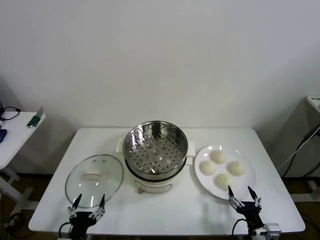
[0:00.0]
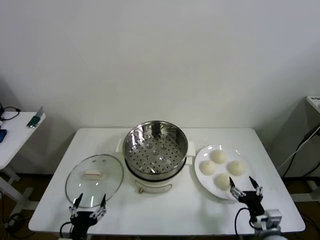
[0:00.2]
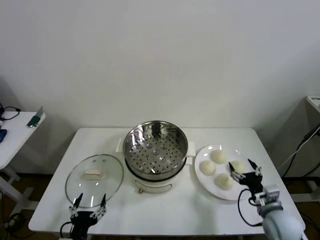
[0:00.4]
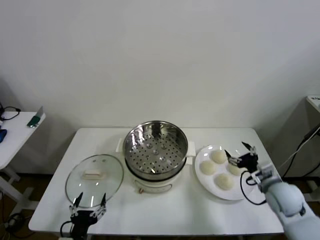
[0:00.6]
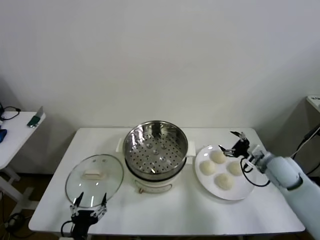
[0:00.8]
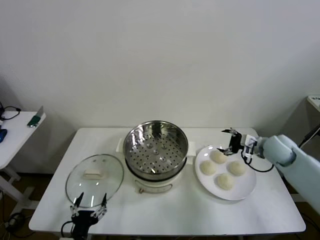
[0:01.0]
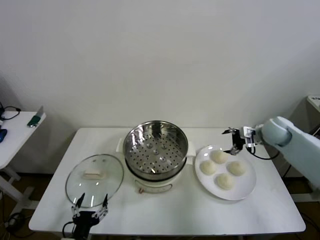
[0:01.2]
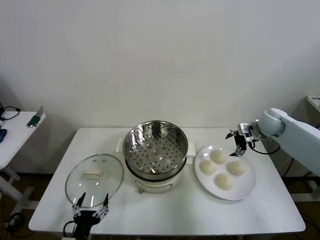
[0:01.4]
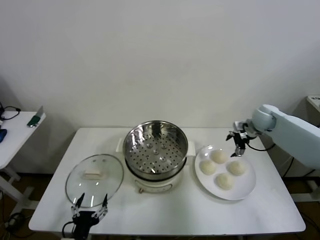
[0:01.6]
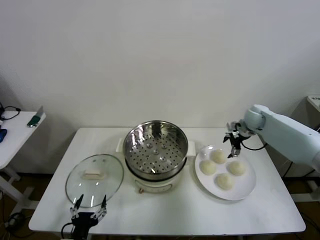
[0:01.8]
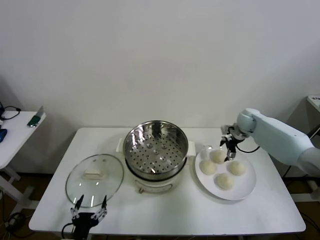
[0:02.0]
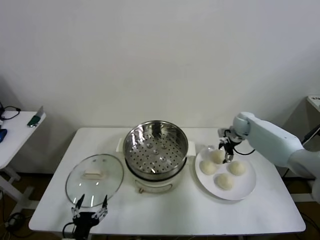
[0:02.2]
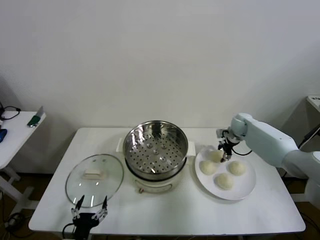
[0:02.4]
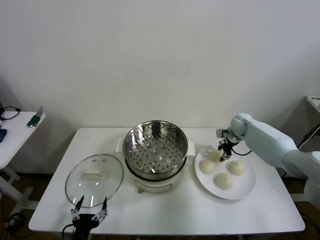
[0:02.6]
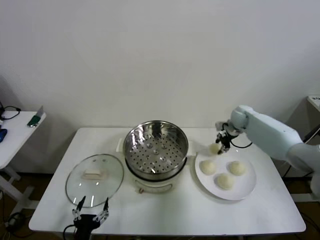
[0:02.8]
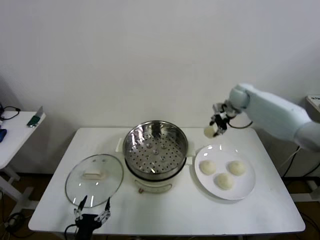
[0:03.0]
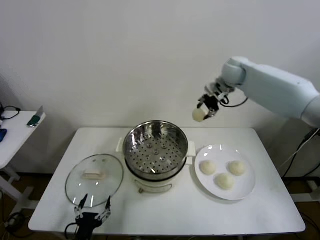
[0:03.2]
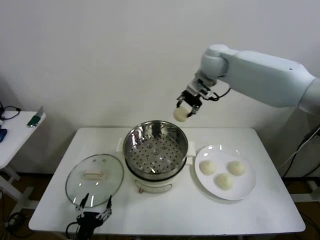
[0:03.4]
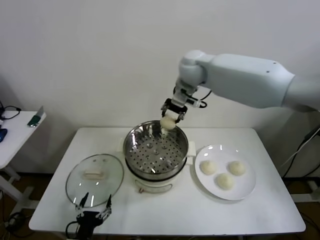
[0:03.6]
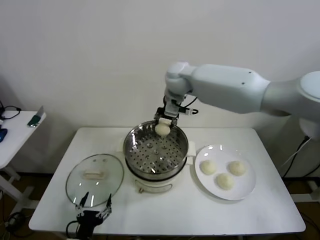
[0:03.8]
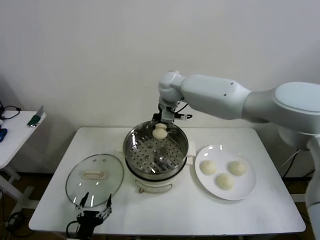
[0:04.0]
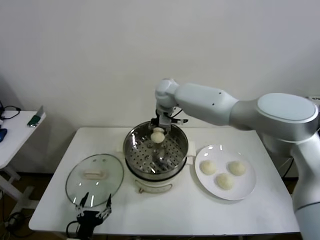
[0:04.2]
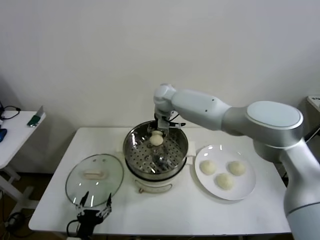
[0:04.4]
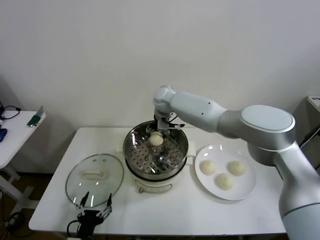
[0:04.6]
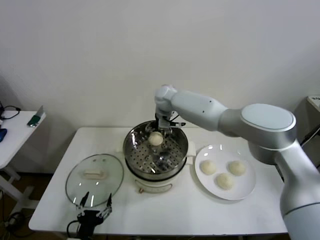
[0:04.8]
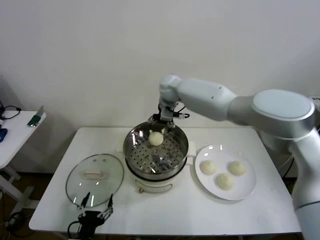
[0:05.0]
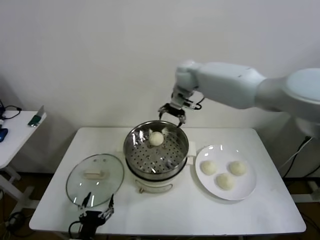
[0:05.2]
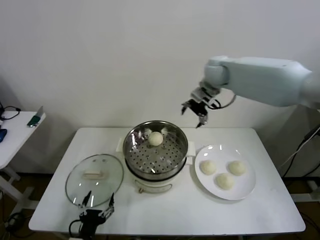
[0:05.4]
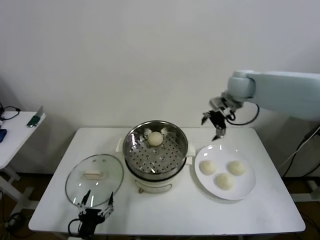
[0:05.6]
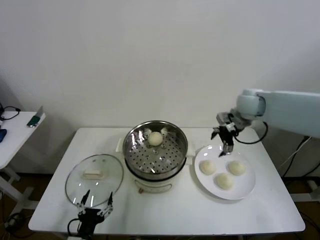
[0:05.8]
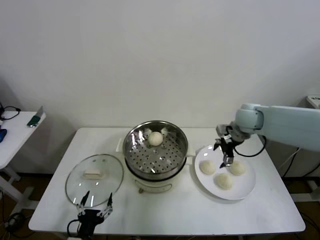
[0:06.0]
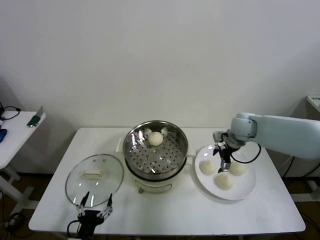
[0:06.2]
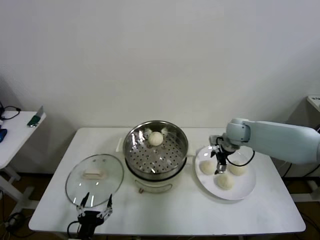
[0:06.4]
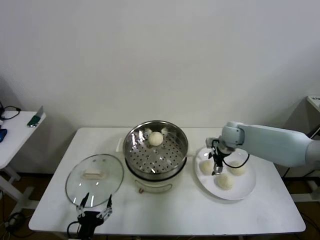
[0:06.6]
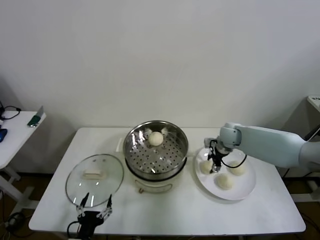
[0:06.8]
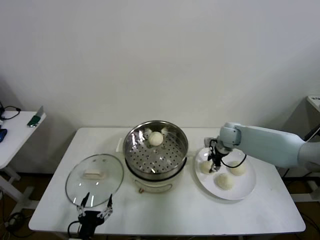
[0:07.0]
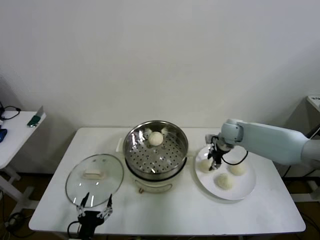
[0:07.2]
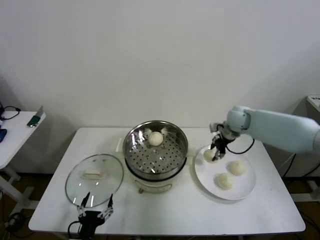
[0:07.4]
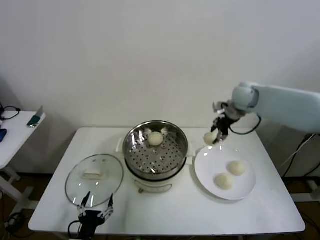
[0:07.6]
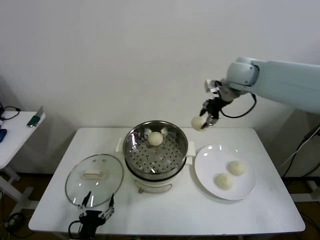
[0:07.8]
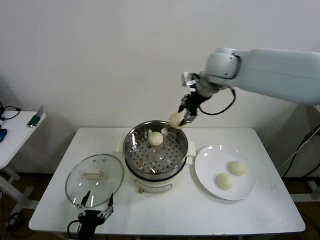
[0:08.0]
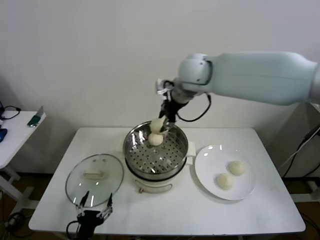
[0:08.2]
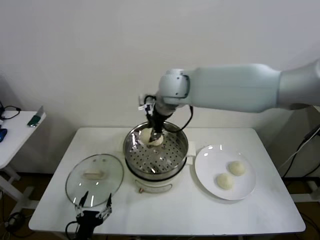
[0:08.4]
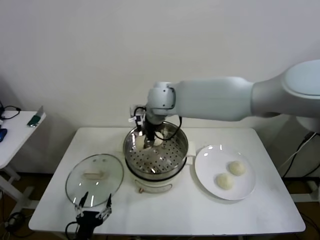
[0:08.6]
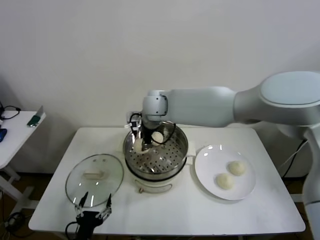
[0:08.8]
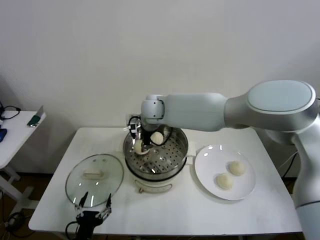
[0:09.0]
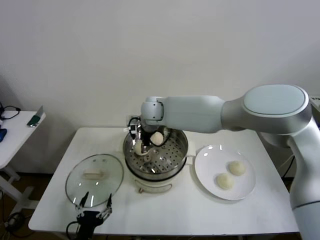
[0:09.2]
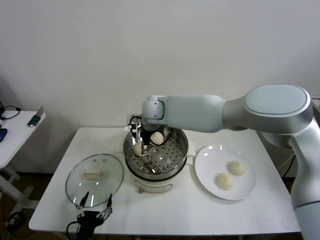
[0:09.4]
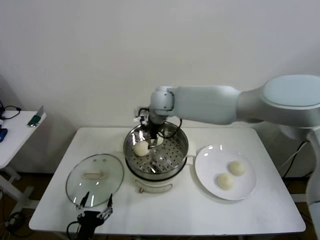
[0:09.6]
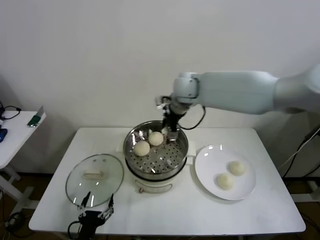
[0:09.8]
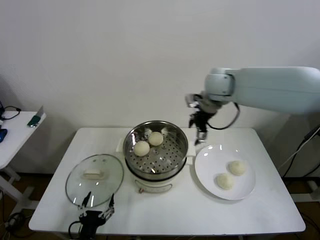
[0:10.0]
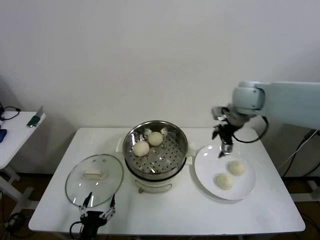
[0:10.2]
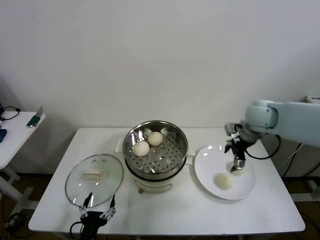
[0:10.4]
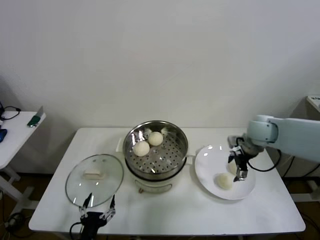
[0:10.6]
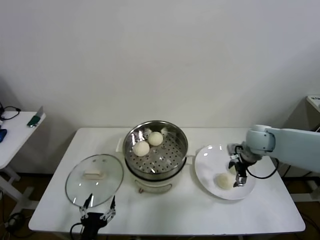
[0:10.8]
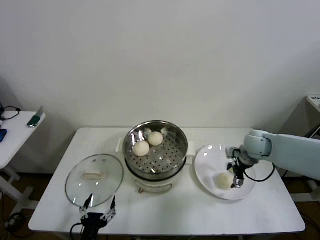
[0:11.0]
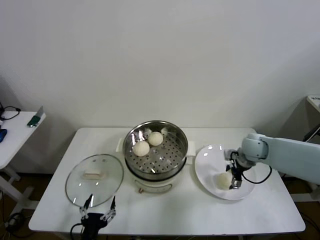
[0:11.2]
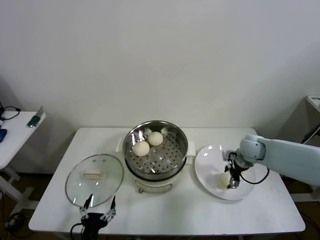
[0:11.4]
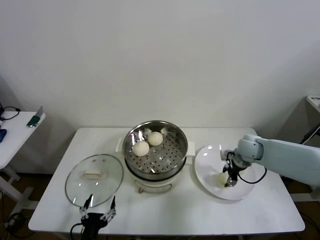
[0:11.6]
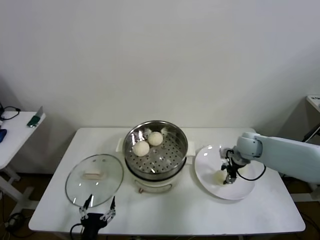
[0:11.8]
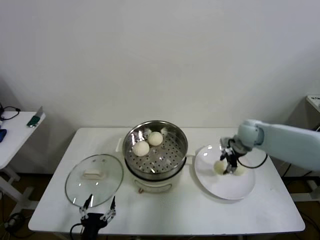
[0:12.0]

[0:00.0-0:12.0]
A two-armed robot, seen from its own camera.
Step, 0:00.0 to 0:02.4: Grasp the baozi in the plate with right gripper.
Step, 0:02.6 to 0:04.8: Place the baozi on the steamer with right gripper.
Step, 0:05.0 to 0:06.8: Grasp the baozi in the plate with right gripper.
Step, 0:07.0 to 0:09.2: Place the baozi on the steamer with right gripper.
Step, 0:09.4 to 0:11.6: Grasp the baozi in the plate with right gripper.
0:01.6 to 0:03.0: The right gripper moves upward, to the left and forward, approximately 15 cm, and closes up.
0:03.0 to 0:04.4: The right gripper shifts some 25 cm to the left.
0:04.4 to 0:06.0: The right gripper travels to the right by approximately 30 cm, and opens its fingers.
0:06.0 to 0:07.6: The right gripper shifts roughly 15 cm upward and forward, and closes up.
0:07.6 to 0:09.0: The right gripper goes roughly 30 cm to the left.
0:09.0 to 0:10.4: The right gripper moves to the right, about 35 cm, and opens up.
0:10.4 to 0:12.0: The right gripper moves downward, approximately 5 cm, and closes.

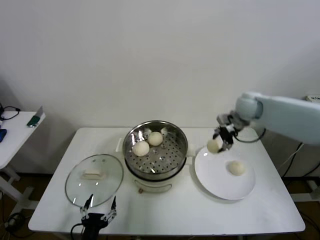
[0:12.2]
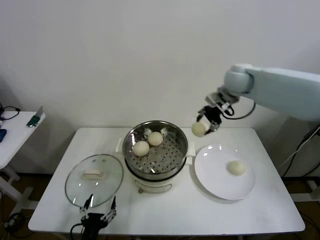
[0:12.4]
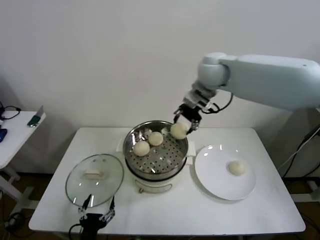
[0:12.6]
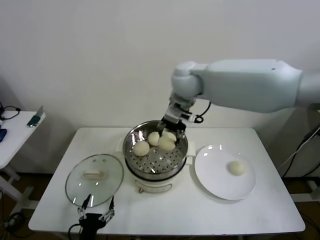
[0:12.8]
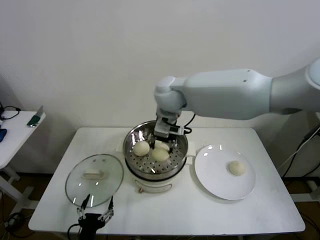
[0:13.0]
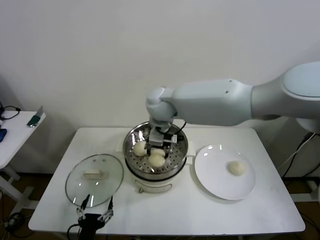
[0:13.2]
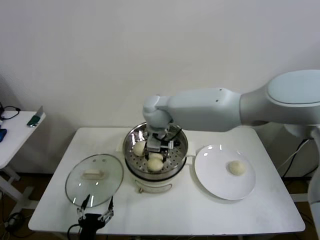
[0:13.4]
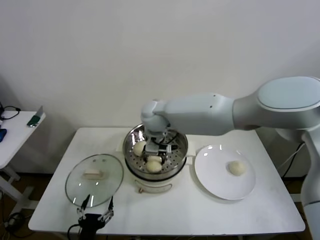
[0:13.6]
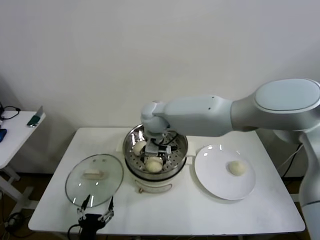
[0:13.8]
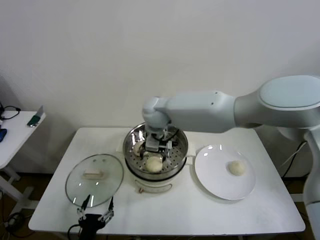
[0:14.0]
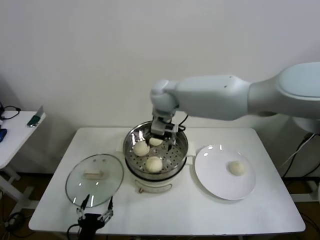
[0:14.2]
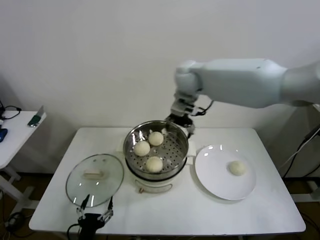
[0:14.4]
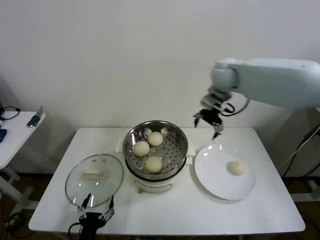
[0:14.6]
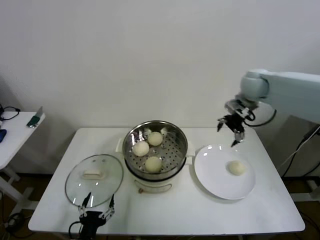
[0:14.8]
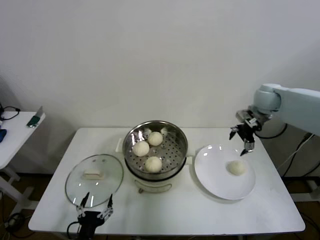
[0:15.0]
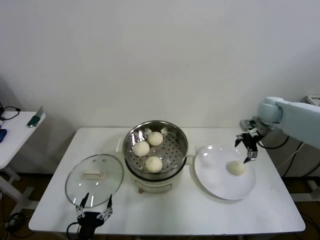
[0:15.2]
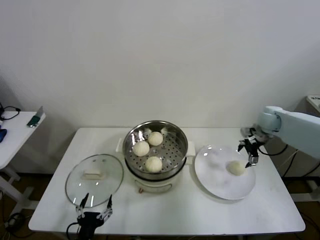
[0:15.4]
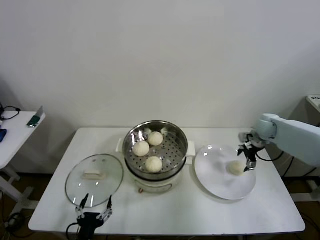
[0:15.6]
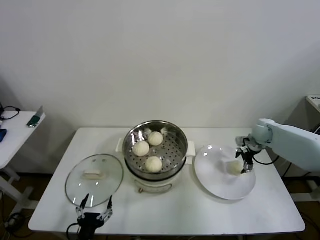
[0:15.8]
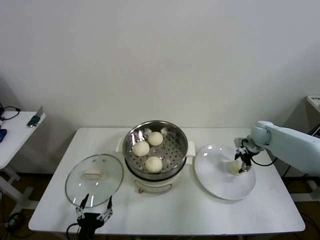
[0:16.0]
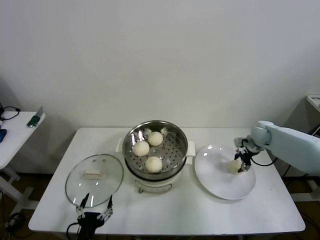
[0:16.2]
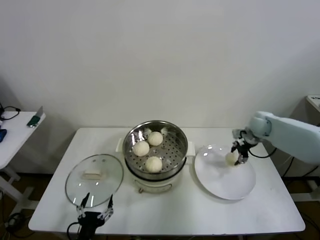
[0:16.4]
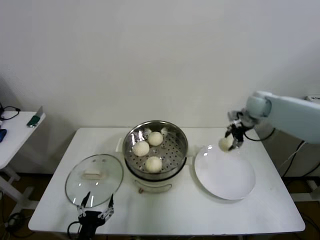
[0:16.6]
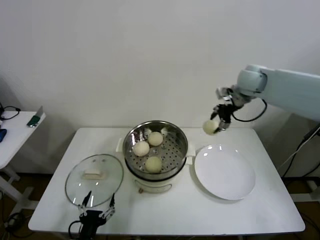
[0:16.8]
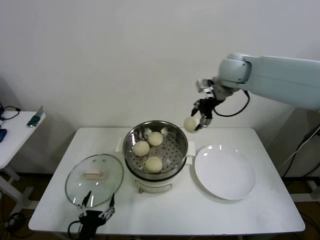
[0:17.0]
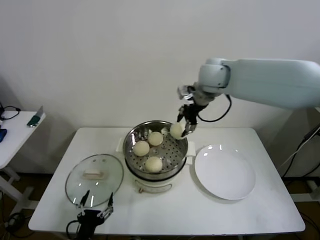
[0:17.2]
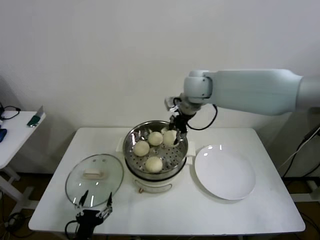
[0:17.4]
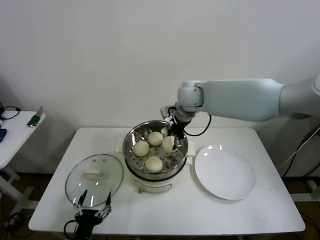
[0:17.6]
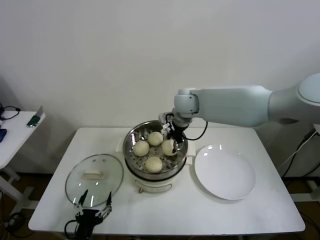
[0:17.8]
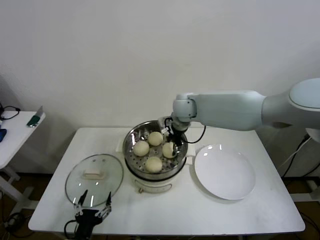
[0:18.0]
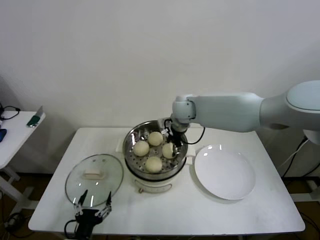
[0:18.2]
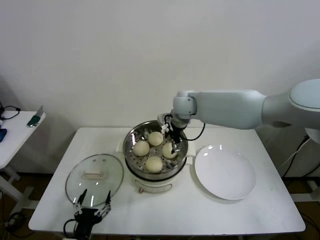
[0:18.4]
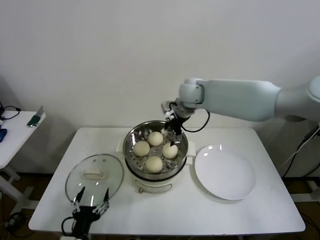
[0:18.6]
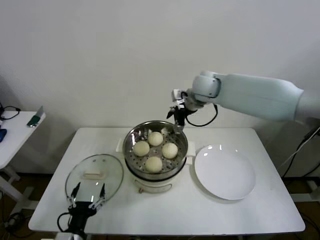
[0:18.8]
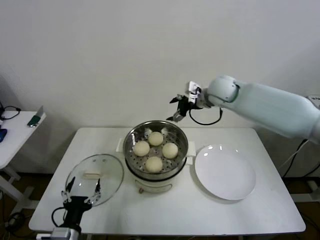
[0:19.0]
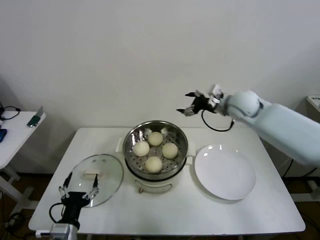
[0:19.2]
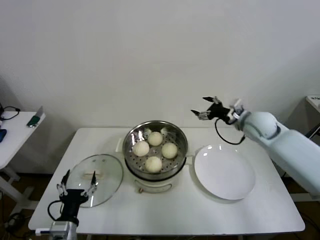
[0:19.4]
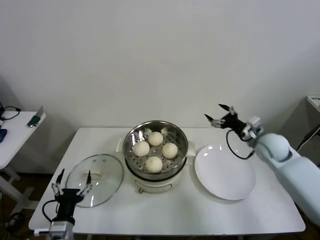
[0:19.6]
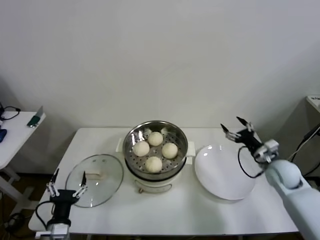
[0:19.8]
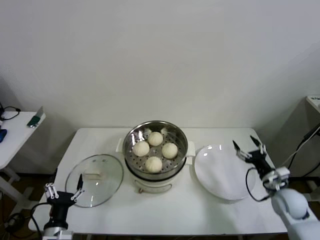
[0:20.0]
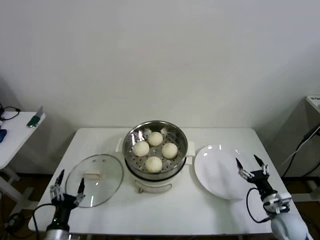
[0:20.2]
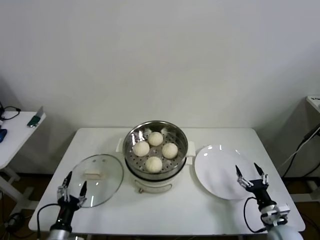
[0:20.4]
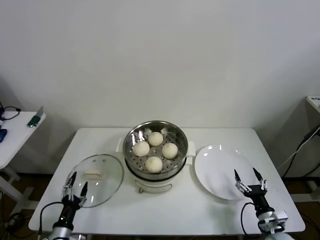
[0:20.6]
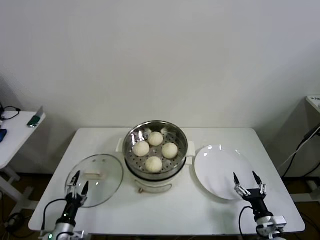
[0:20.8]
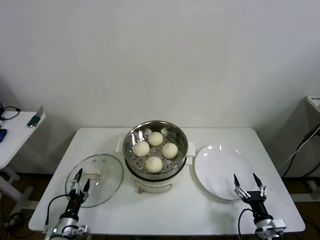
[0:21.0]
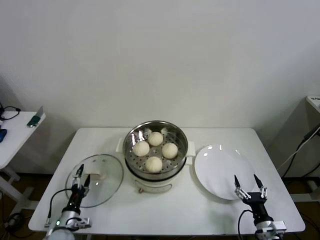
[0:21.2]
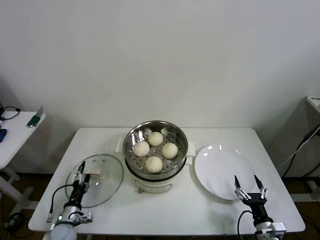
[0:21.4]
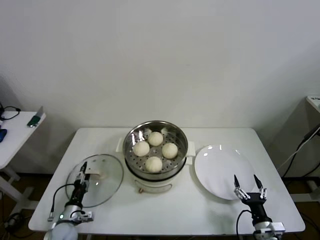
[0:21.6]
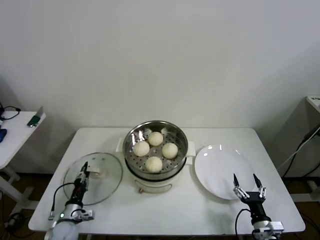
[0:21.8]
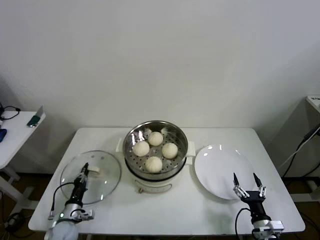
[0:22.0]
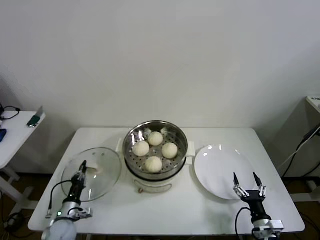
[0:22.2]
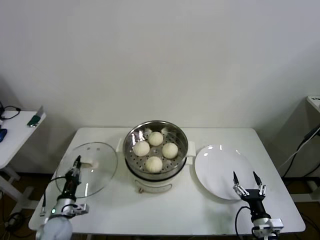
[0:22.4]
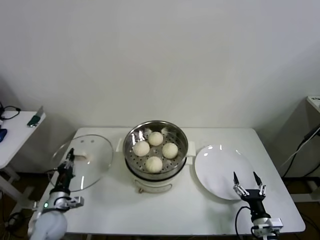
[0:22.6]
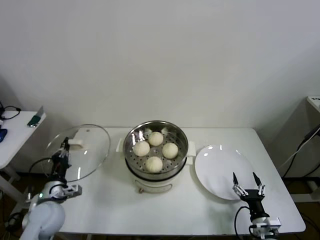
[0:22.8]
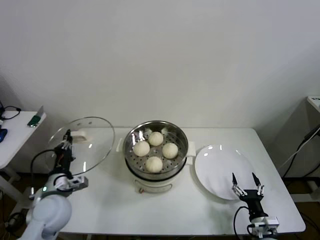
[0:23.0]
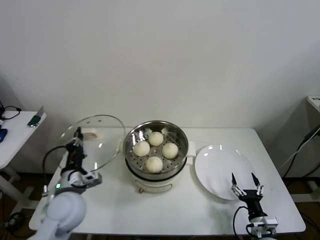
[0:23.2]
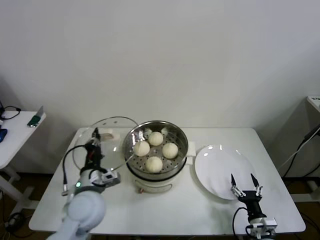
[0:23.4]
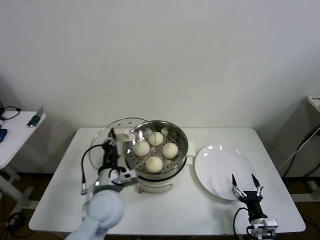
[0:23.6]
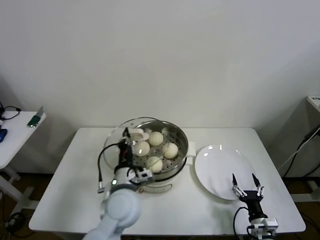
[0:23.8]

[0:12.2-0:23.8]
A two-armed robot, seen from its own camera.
Step, 0:12.2 to 0:13.6: Place the baozi on the steamer with right gripper.
Step, 0:14.0 to 0:16.0: Grasp the baozi in the plate with right gripper.
Step, 0:16.2 to 0:18.2: Place the baozi on the steamer with right gripper.
Step, 0:18.4 to 0:22.0: Grasp the pot lid with left gripper.
0:12.2 to 0:13.6: The right gripper heads to the left, covering some 30 cm.
0:13.6 to 0:15.0: The right gripper heads to the right, covering roughly 40 cm, and opens.
0:15.0 to 0:16.6: The right gripper reaches approximately 15 cm downward, then returns, and closes up.
0:16.6 to 0:18.0: The right gripper shifts some 25 cm to the left.
0:18.0 to 0:19.4: The right gripper is displaced to the right by approximately 25 cm, and opens its fingers. Meanwhile the left gripper ends up roughly 5 cm from where it was.
0:19.4 to 0:21.0: The left gripper moves downward and to the left, approximately 15 cm, while the right gripper heads backward and downward, covering approximately 40 cm.
0:21.0 to 0:22.4: The left gripper travels forward by approximately 5 cm, and closes up.
0:22.4 to 0:23.8: The left gripper travels to the right and upward by roughly 30 cm.
